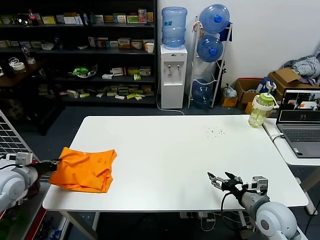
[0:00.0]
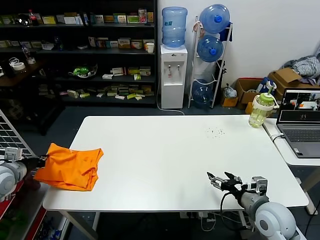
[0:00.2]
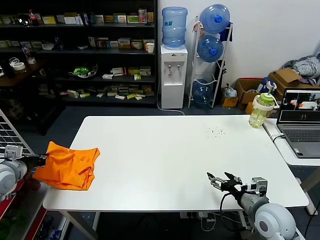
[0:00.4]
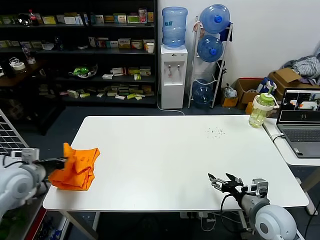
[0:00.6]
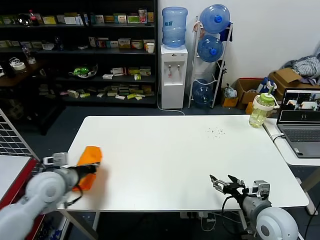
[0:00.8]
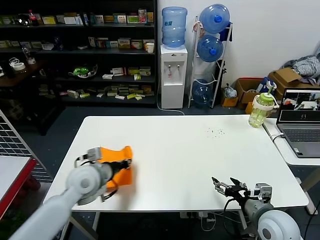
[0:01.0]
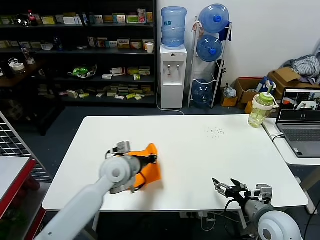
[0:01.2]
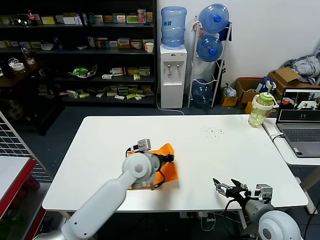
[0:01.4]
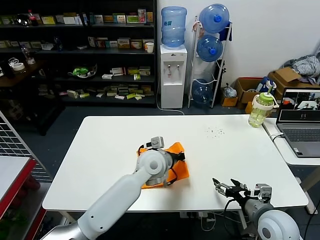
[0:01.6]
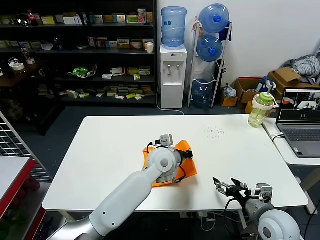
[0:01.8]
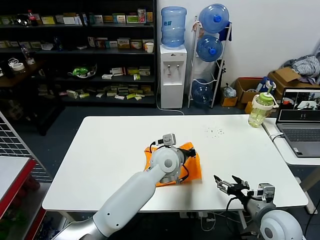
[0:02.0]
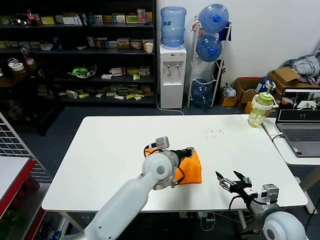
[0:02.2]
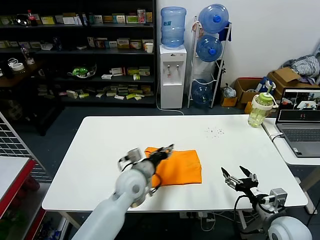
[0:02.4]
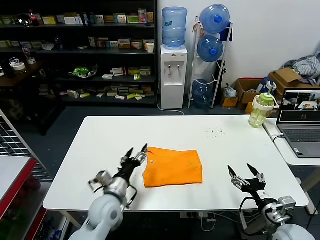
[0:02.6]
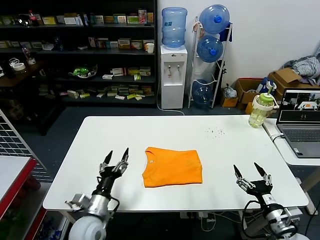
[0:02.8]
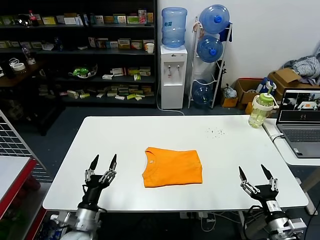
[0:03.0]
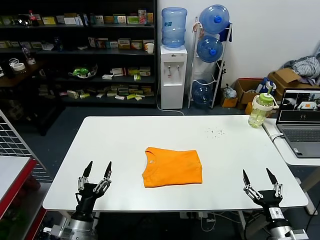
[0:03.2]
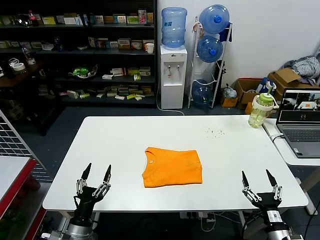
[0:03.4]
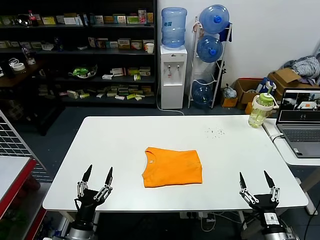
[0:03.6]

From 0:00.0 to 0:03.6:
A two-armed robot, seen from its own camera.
Task of the whole recording: fold and organize the clothes.
Step, from 0:00.0 to 0:02.0: Flip the folded clothes over with left gripper.
From 0:00.0 to 0:01.8: The left gripper travels to the right by some 40 cm.
From 0:01.8 to 0:03.6: The left gripper travels to the left, backward and downward by approximately 40 cm, and opens, while the right gripper heads backward and downward, covering about 10 cm.
